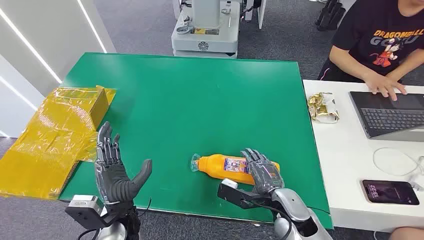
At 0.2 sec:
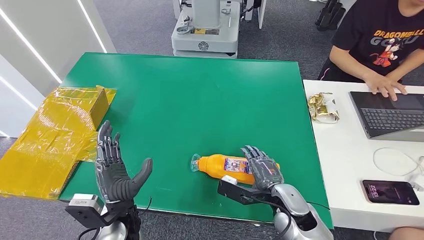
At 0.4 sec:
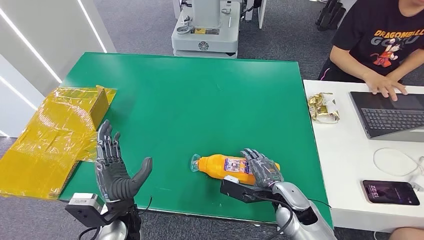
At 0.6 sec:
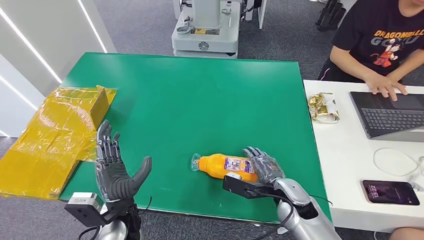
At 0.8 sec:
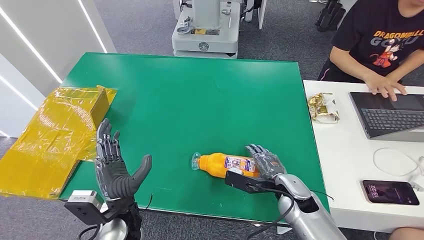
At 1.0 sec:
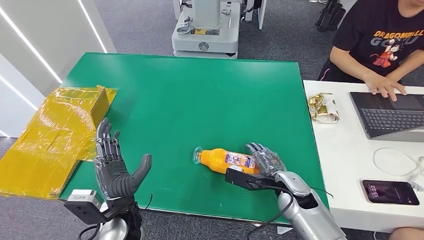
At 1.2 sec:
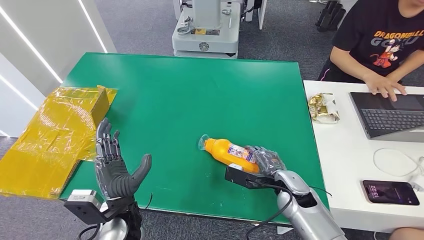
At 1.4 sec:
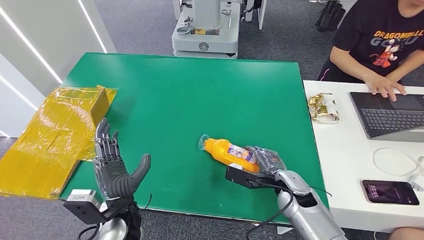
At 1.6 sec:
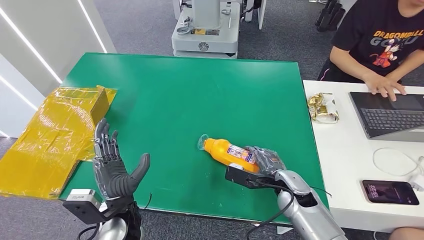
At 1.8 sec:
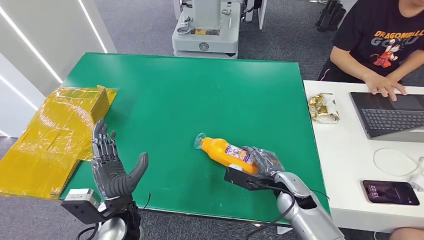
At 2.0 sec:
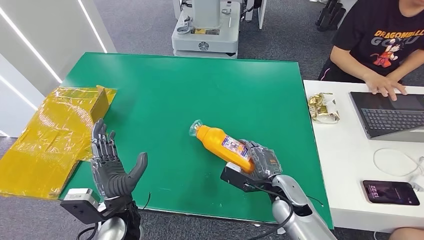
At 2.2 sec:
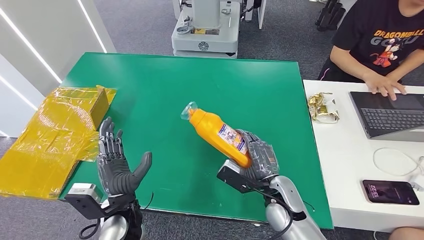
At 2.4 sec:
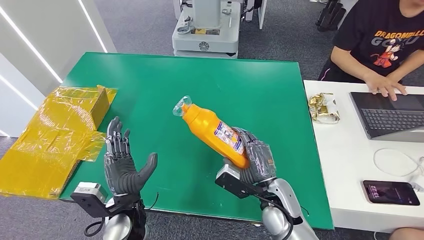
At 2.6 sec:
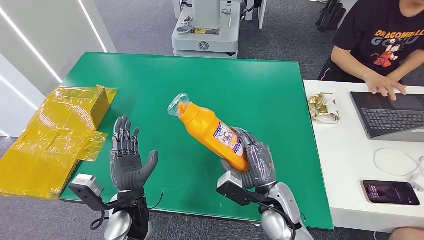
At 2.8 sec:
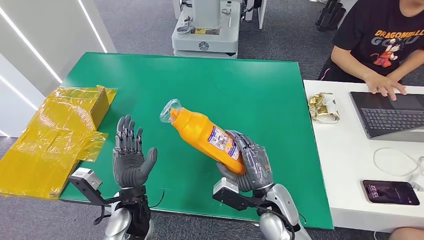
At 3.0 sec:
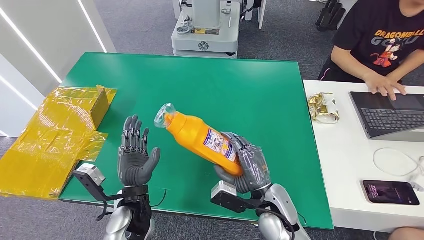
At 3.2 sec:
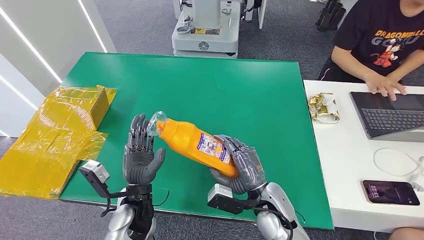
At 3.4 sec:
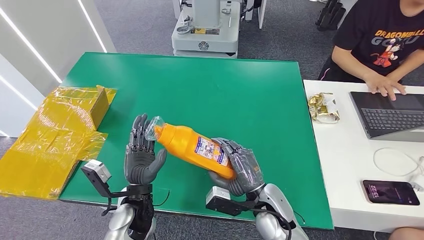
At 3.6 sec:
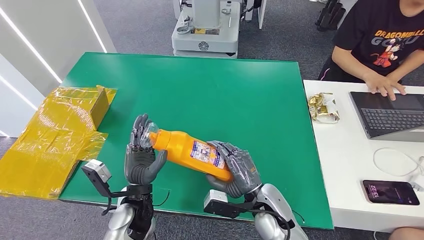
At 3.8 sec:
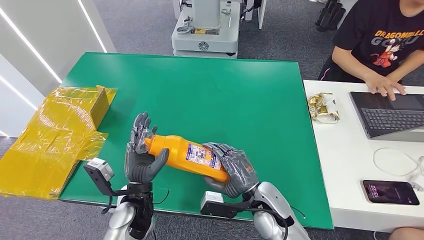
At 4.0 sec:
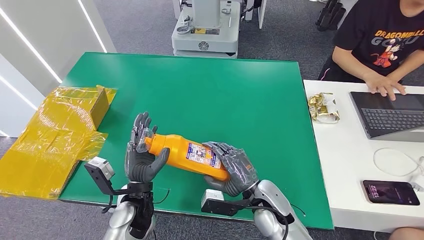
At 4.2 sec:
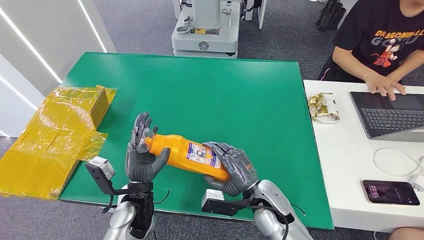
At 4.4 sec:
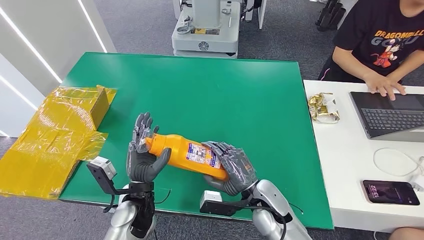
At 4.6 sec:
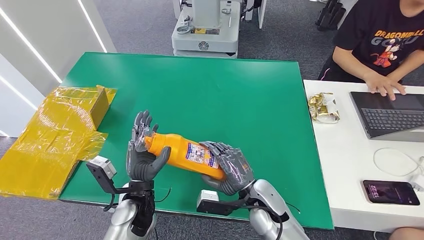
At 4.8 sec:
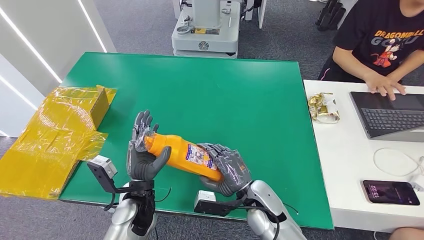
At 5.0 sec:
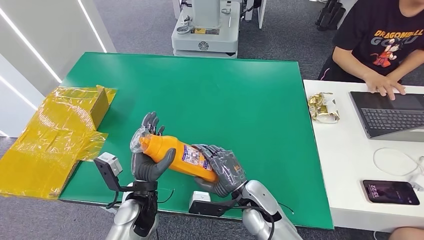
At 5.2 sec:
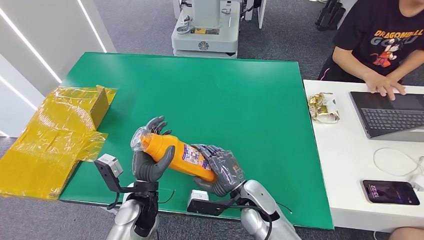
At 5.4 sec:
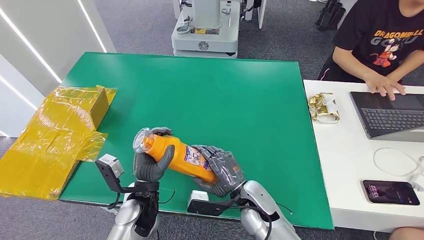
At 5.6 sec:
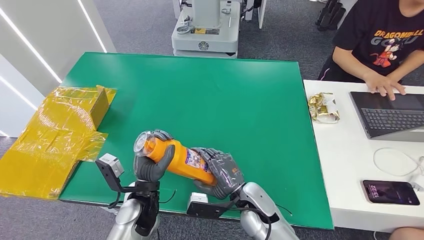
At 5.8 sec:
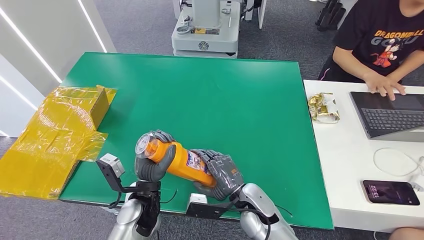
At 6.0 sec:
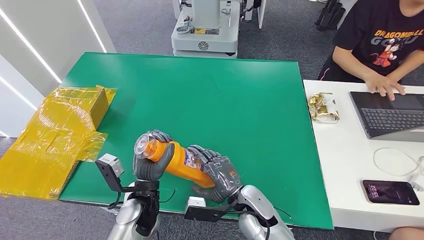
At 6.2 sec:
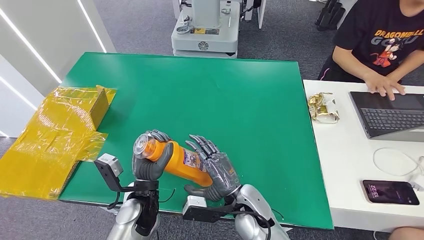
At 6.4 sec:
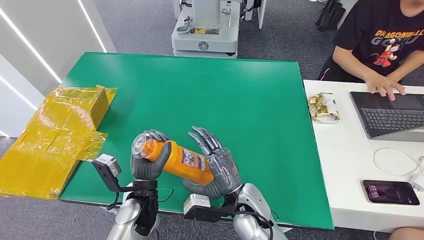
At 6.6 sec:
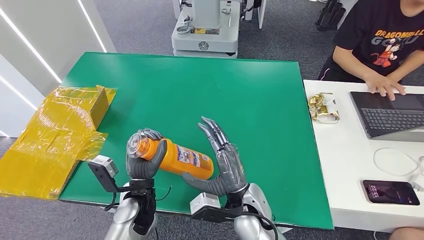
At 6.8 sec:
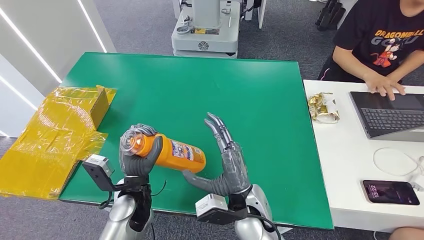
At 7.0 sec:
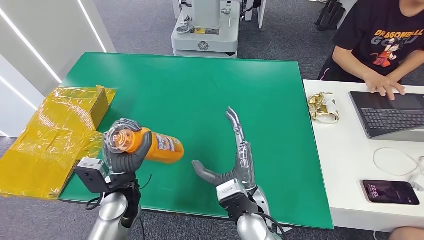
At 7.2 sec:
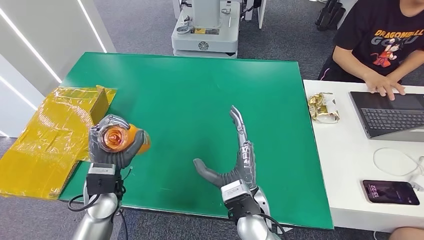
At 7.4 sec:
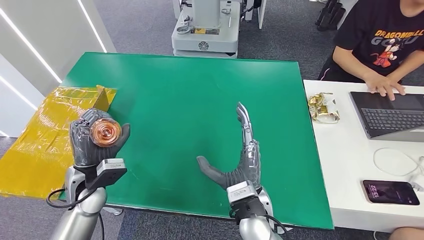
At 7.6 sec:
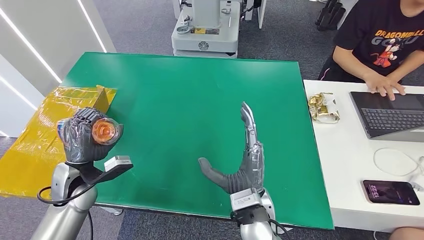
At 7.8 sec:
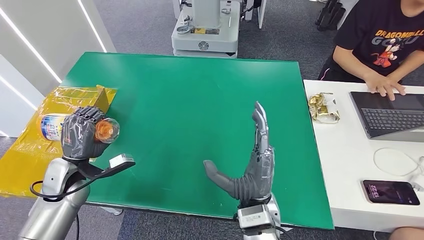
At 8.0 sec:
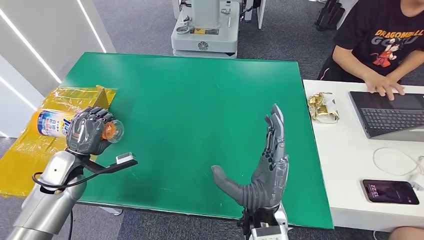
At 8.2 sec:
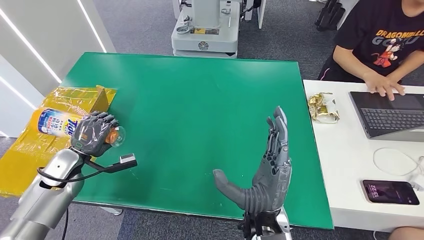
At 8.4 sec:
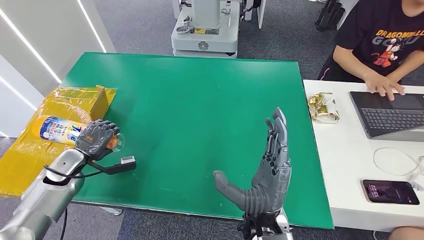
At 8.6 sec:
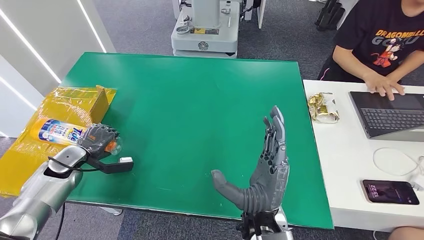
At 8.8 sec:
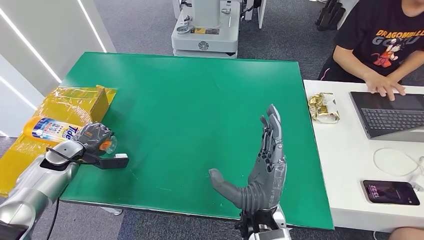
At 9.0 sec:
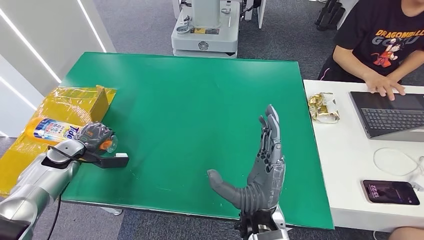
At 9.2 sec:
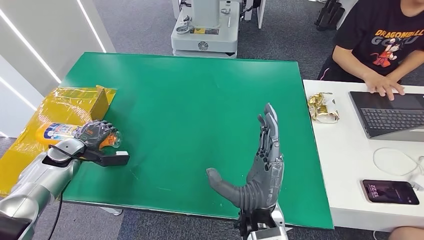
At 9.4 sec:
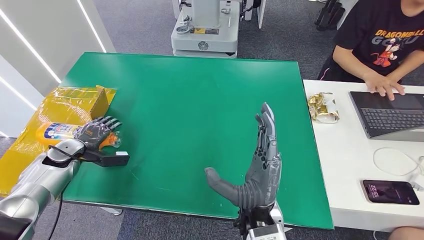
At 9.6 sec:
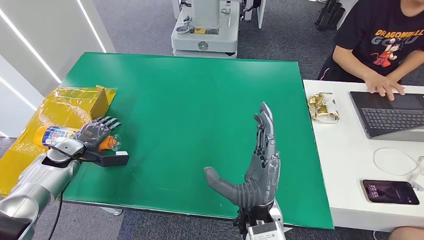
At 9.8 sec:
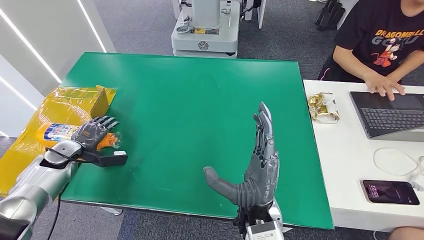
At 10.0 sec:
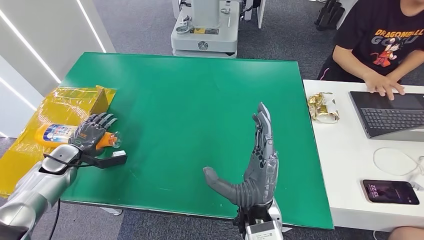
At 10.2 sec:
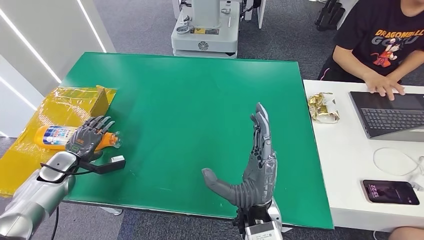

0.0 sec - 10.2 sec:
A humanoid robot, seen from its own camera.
Step, 0.0 sec - 2.8 sec: Pick up the bottle from the table.
Step, 3.2 sec - 10.2 sec: Turn the bottle to the front side.
1.4 sec - 3.0 sec: The right hand heads to the left and backward, covering about 10 cm.
3.0 sec - 5.8 sec: The hands make only small movements.
5.8 sec - 7.2 sec: The left hand goes roughly 10 cm to the left, while the right hand moves upward, approximately 5 cm.
7.2 sec - 8.8 sec: The left hand moves to the left and forward, some 25 cm. The right hand shifts by about 5 cm.
8.8 sec - 10.2 sec: The hands move only a little.
